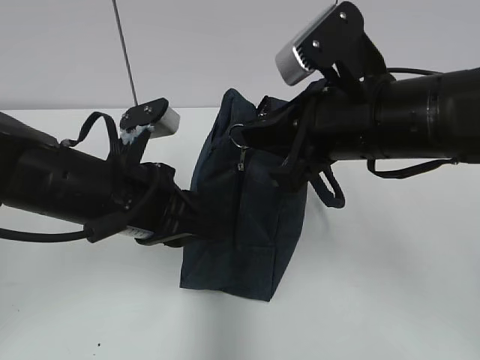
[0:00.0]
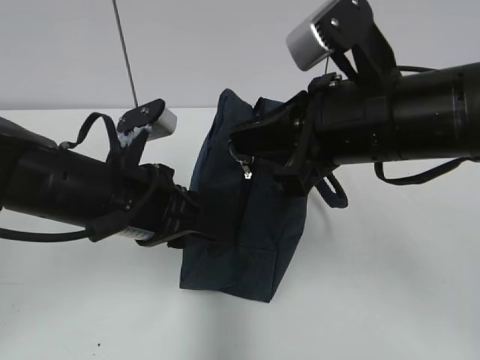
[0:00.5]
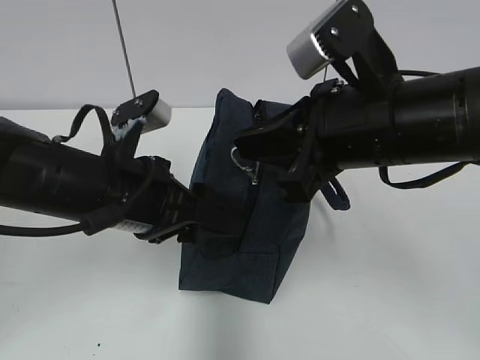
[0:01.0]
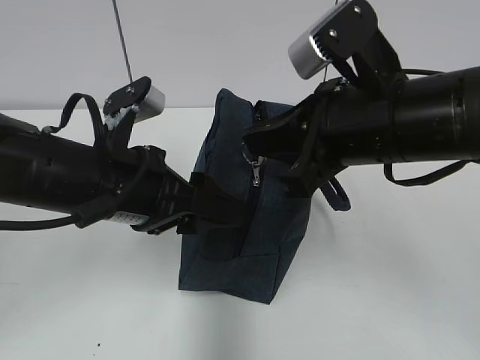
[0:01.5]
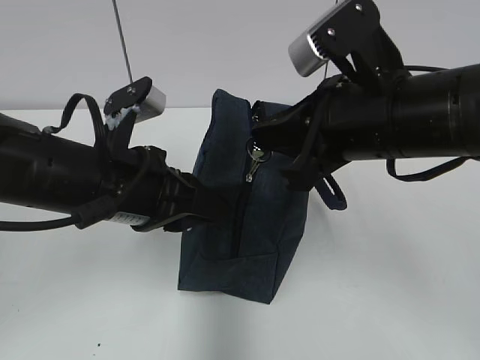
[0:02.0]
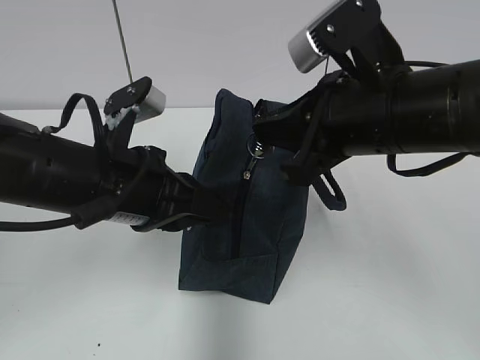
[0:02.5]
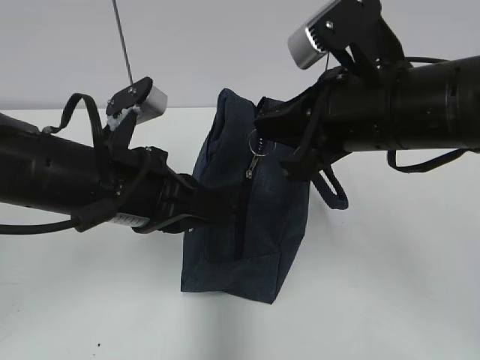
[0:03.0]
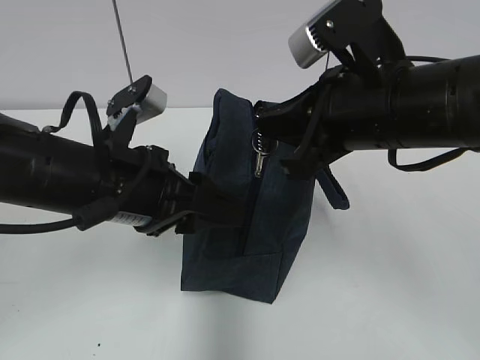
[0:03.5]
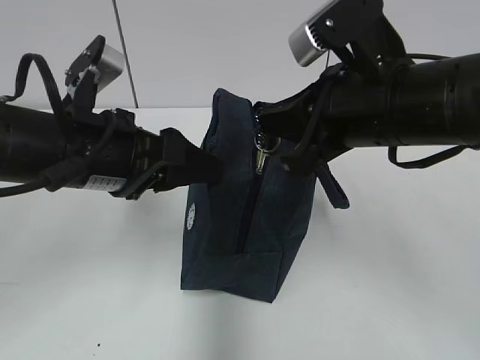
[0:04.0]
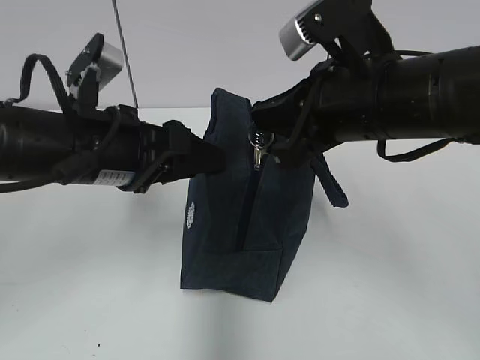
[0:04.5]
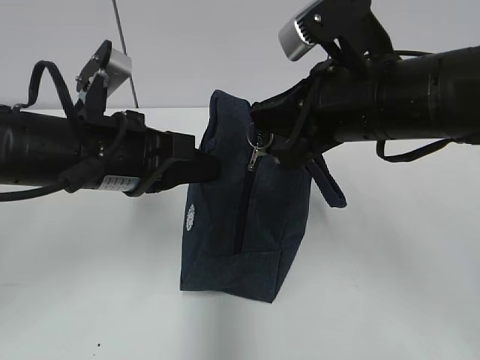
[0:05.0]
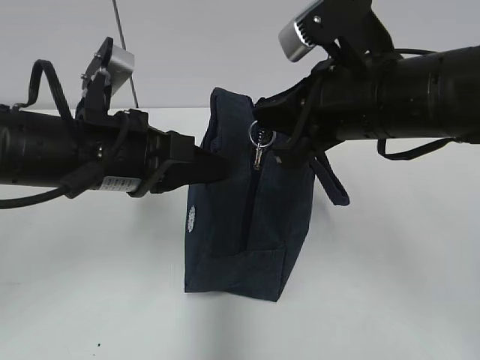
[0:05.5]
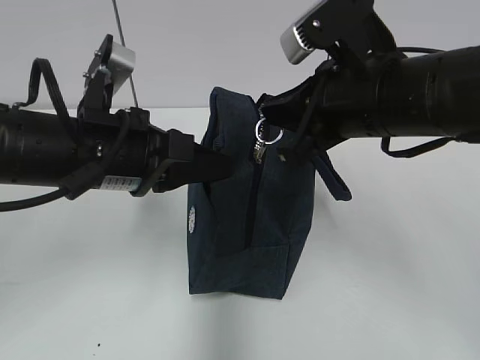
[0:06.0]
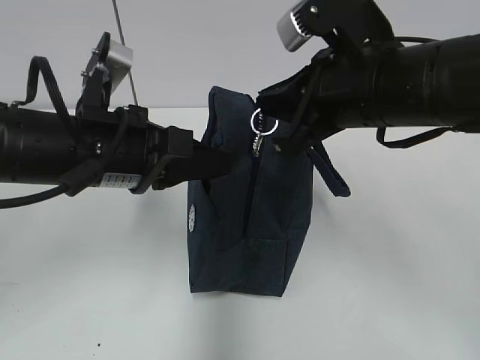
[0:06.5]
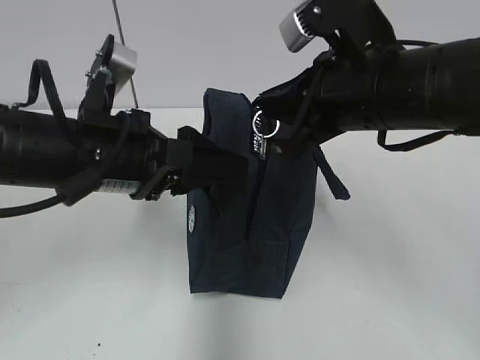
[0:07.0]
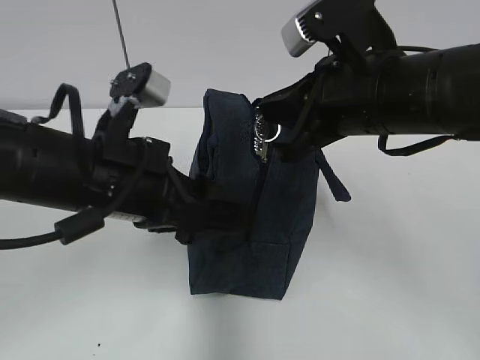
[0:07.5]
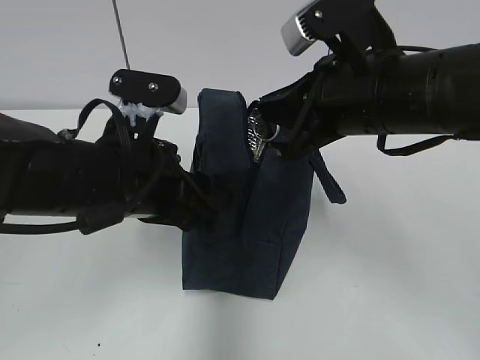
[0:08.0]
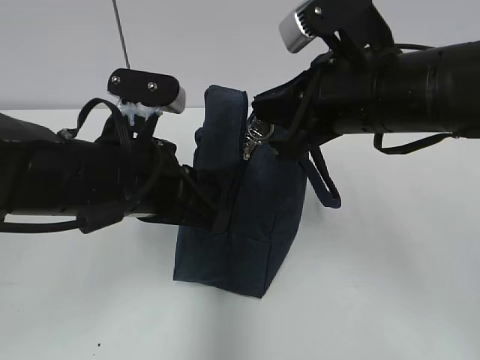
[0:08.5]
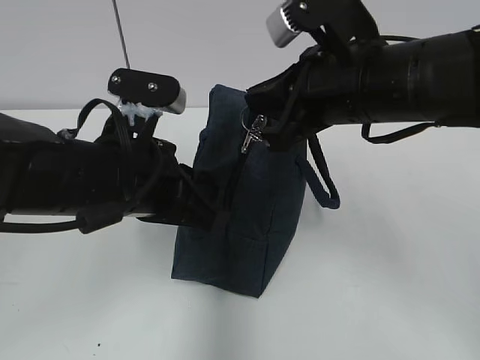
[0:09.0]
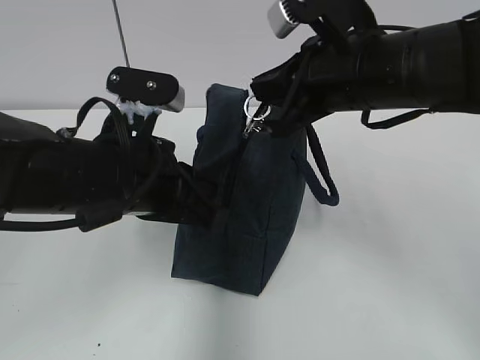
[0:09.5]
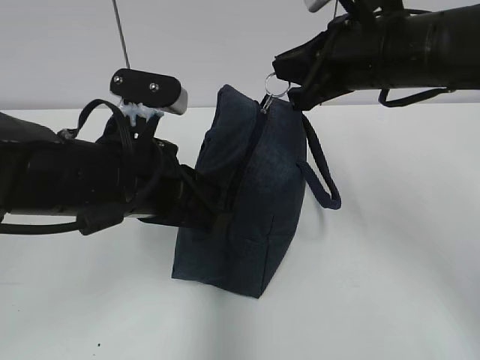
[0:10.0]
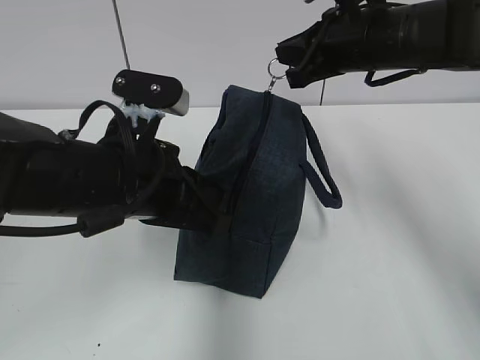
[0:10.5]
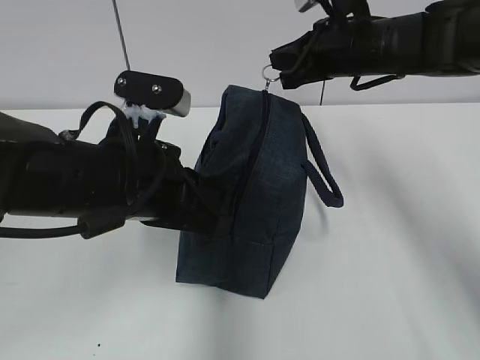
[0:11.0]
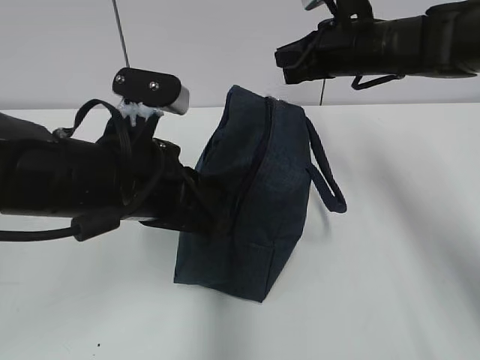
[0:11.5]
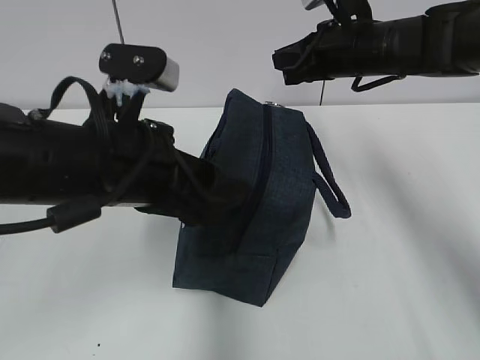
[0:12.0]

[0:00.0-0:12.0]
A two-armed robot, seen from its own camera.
0:00.0 to 0:02.0: The left gripper opens and closes again.
0:02.0 to 0:04.0: The left gripper opens its fingers.
0:04.0 to 0:06.0: The left gripper closes its fingers.
0:06.0 to 0:08.0: The left gripper opens up.
0:08.0 to 0:10.0: The right gripper heads forward, covering about 5 cm. The left gripper closes its fingers.
0:10.0 to 0:12.0: The left gripper opens up, while the right gripper moves forward, roughly 10 cm.

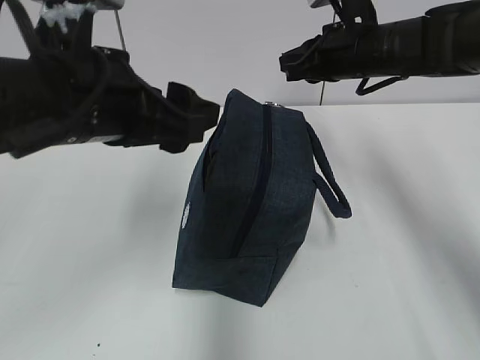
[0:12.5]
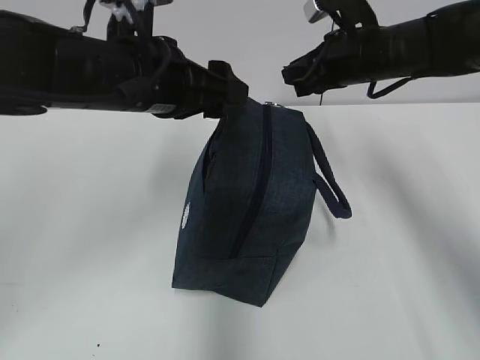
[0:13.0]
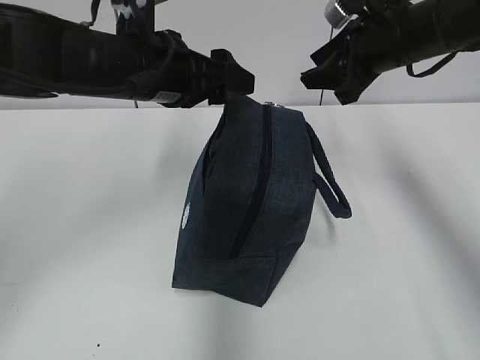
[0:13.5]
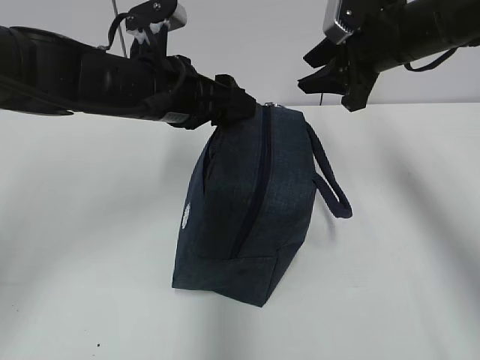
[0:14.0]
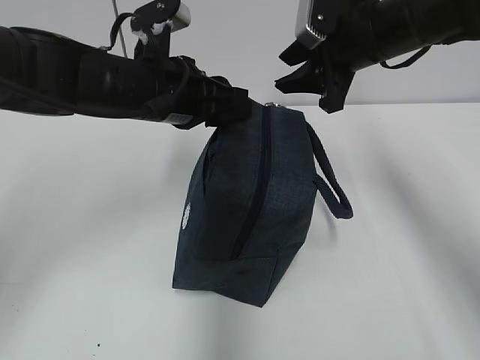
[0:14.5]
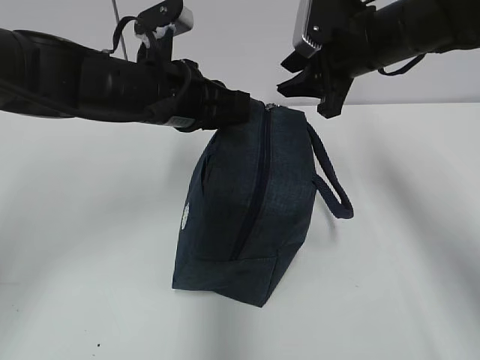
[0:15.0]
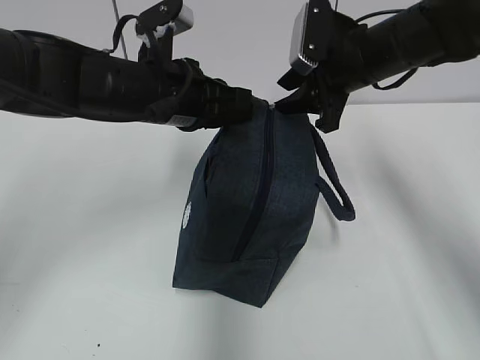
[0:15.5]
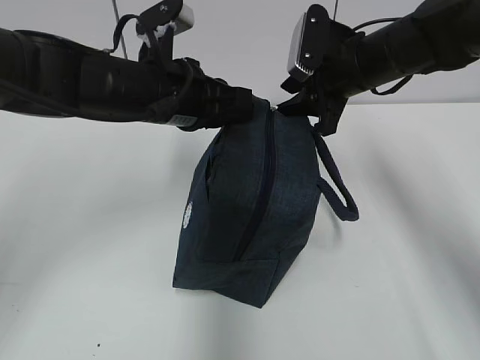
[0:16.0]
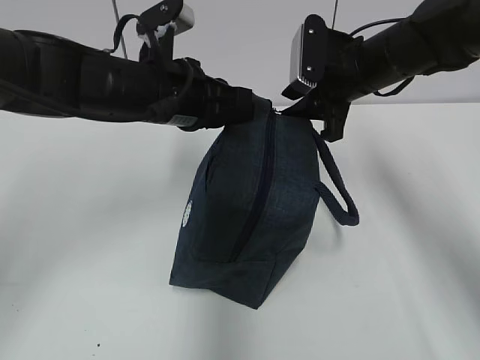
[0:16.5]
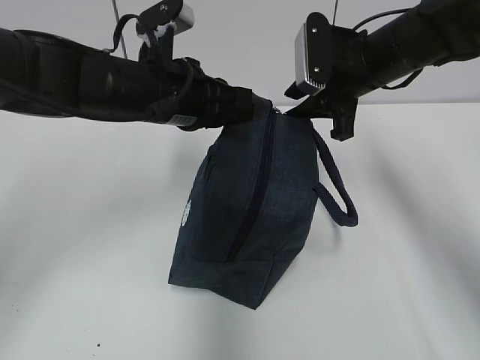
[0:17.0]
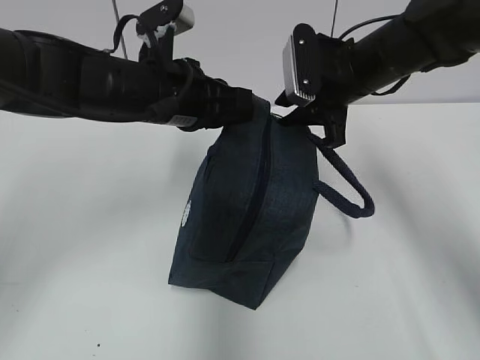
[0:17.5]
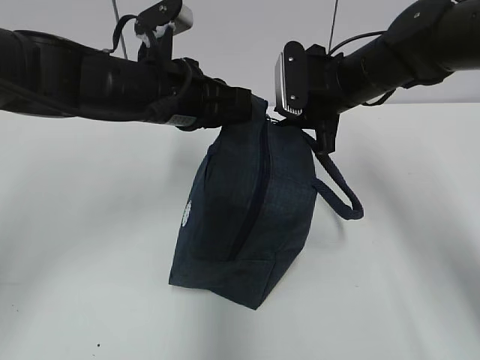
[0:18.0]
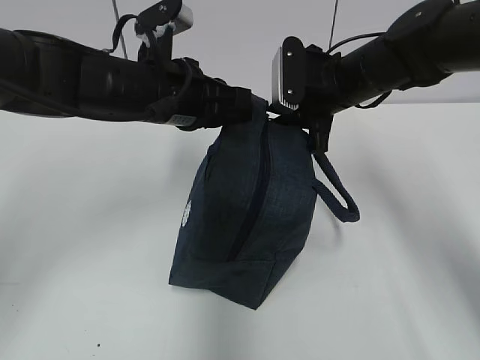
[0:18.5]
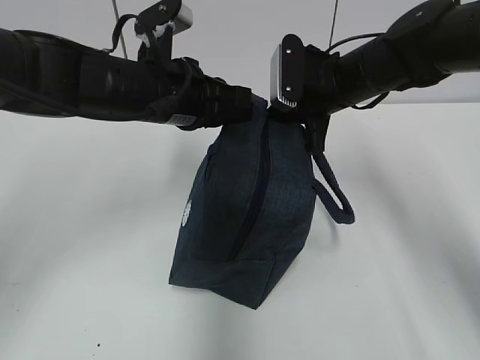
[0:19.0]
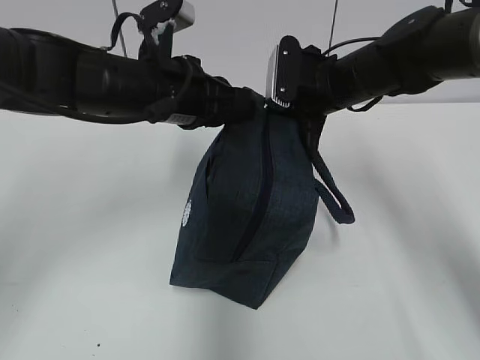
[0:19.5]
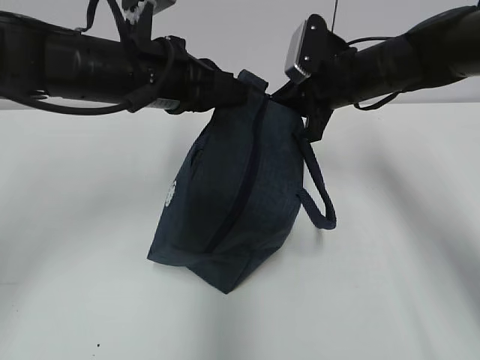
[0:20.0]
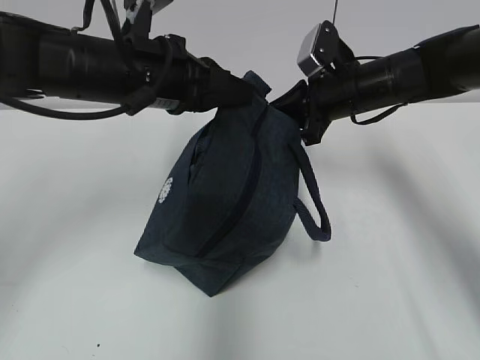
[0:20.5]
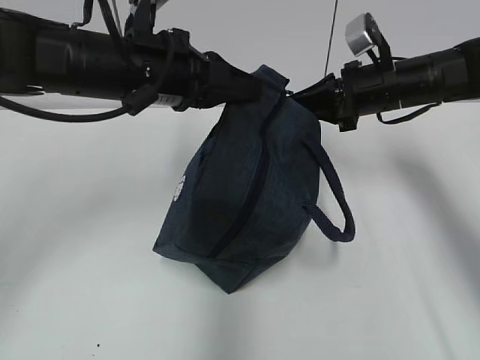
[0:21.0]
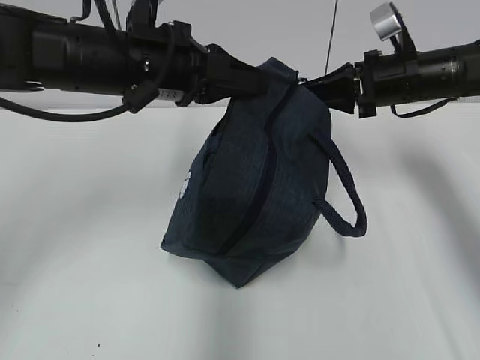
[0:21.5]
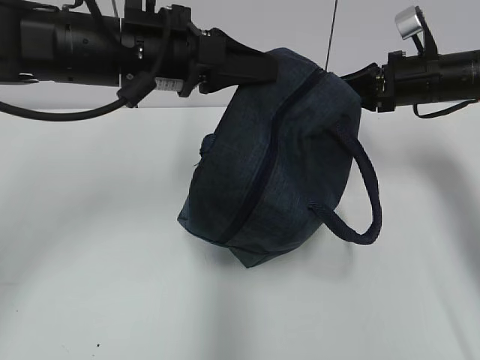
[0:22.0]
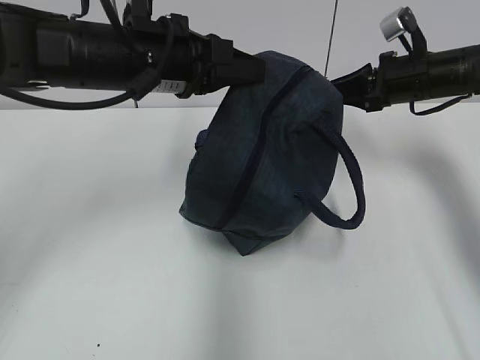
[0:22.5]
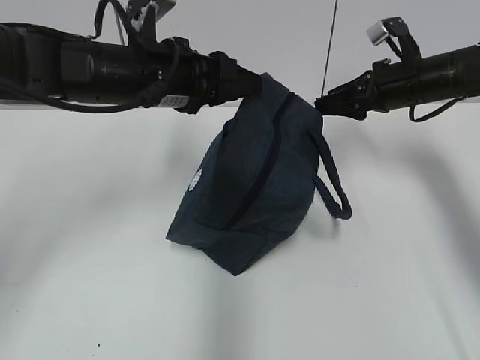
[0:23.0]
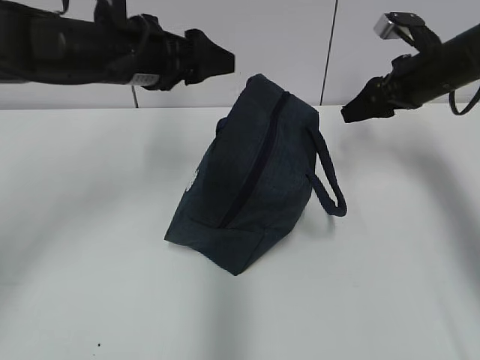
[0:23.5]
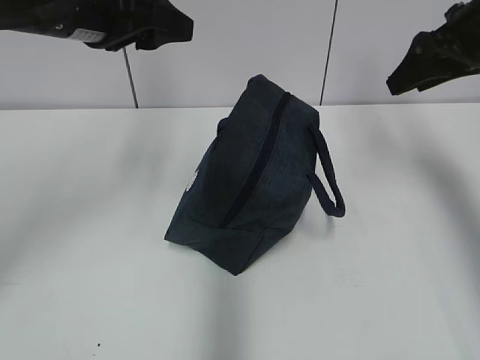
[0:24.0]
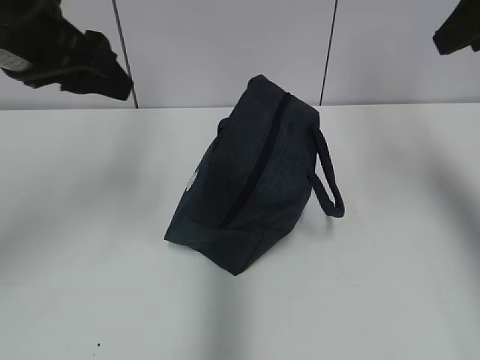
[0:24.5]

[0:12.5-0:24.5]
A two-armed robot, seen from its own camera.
Step, 0:12.5 to 0:22.0: Pull the zipper with your right hand.
Step, 0:22.5 to 0:23.5: Grab the lunch bag with your left hand.
0:12.5 to 0:14.5: The right gripper opens, while the left gripper moves forward, roughly 10 cm, and closes.
0:14.5 to 0:16.5: The grippers stay close to where they were, moving slightly.
0:16.5 to 0:18.5: The grippers make only small movements.
0:18.5 to 0:20.5: The right gripper closes its fingers.
0:20.5 to 0:22.5: The right gripper travels to the right by some 10 cm.
0:22.5 to 0:24.5: The right gripper goes roughly 25 cm upward and backward, and opens its fingers; the left gripper shifts about 15 cm to the left, upward and backward, and opens its fingers.

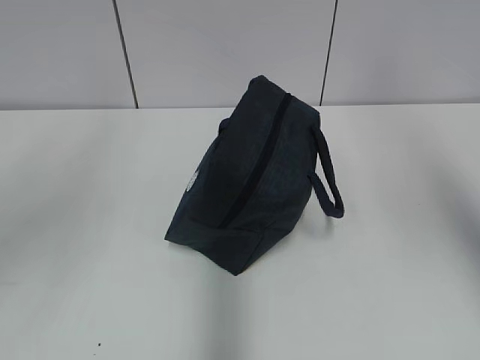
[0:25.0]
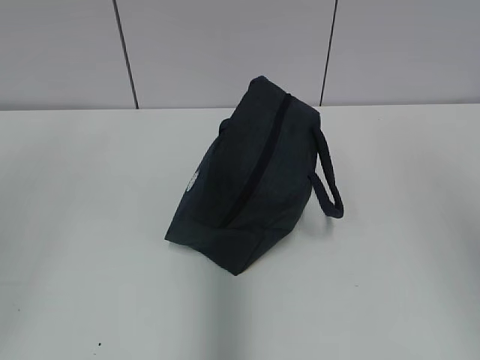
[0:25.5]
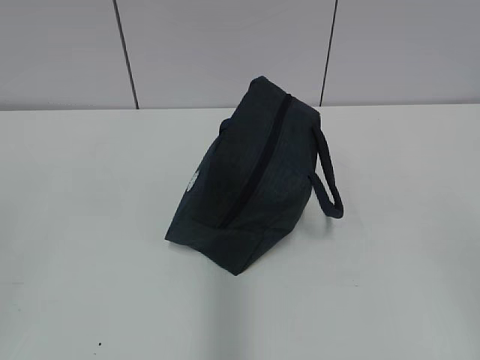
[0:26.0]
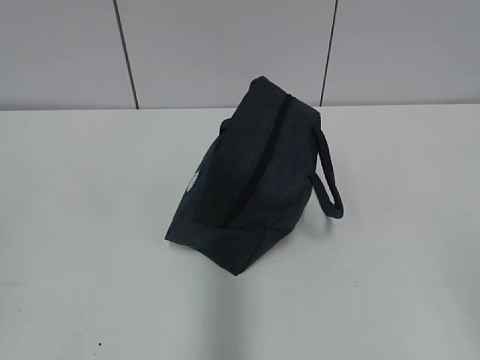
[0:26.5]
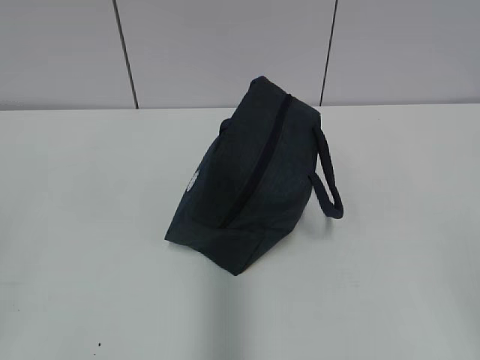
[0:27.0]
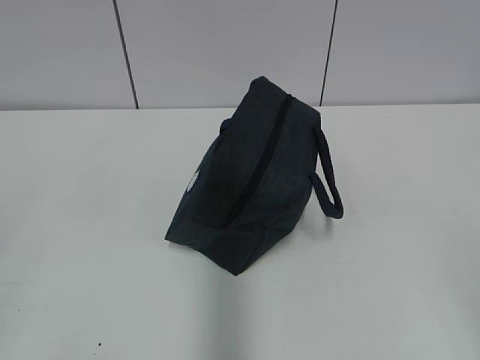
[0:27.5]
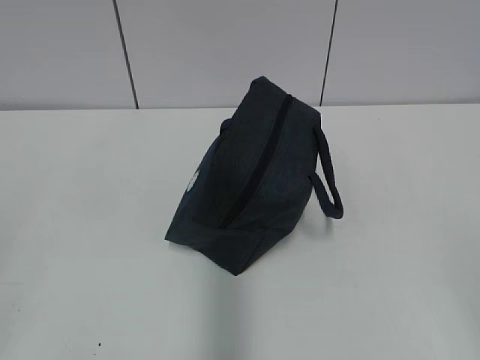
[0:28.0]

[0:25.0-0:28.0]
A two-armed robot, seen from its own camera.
0:25.0 to 0:26.5: The right gripper heads downward and backward, covering about 30 cm.
0:26.5 to 0:28.0: Neither gripper changes place.
